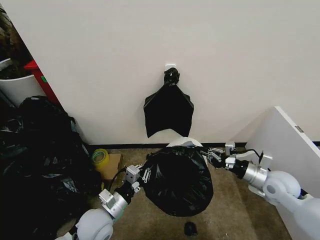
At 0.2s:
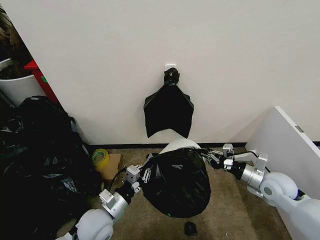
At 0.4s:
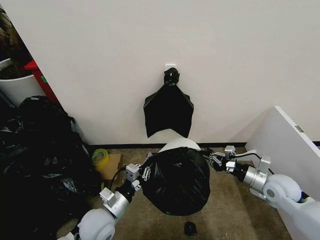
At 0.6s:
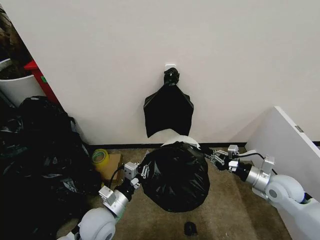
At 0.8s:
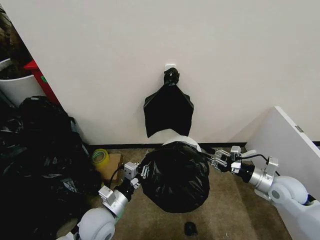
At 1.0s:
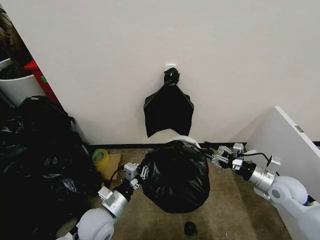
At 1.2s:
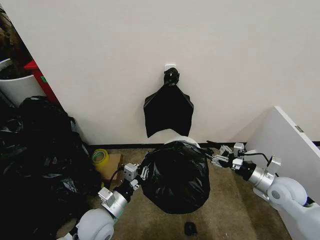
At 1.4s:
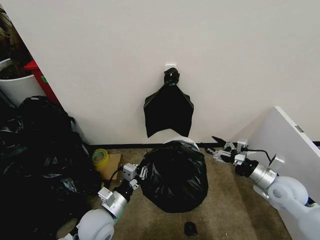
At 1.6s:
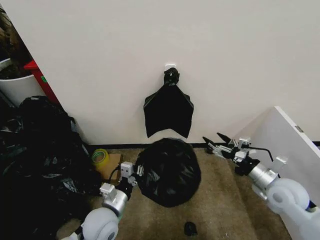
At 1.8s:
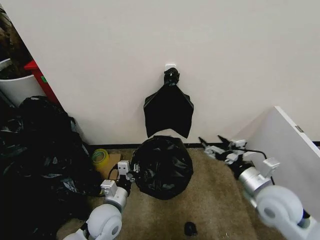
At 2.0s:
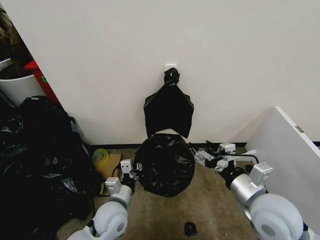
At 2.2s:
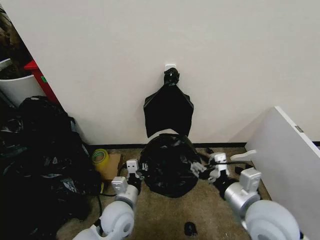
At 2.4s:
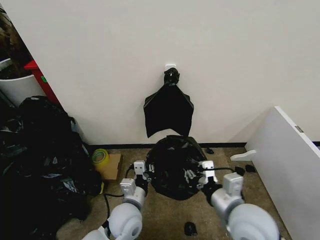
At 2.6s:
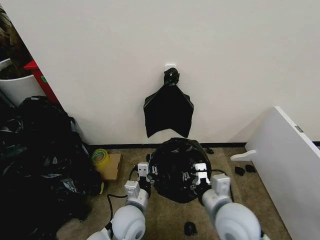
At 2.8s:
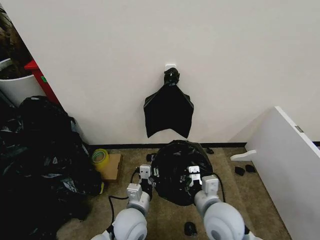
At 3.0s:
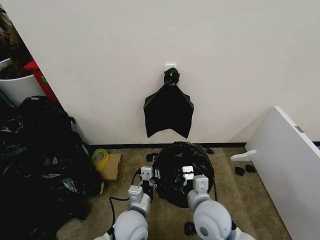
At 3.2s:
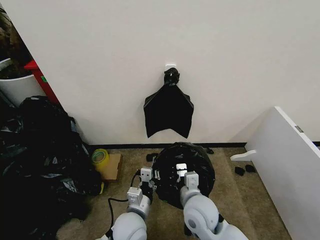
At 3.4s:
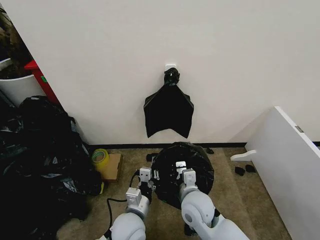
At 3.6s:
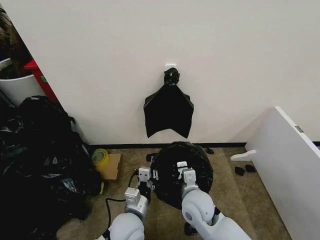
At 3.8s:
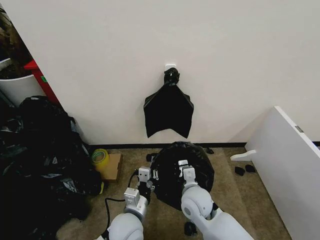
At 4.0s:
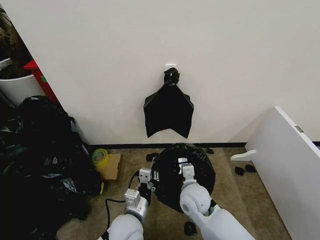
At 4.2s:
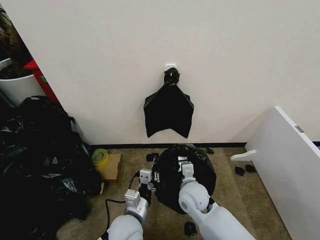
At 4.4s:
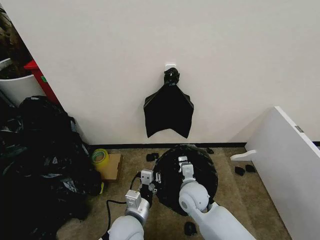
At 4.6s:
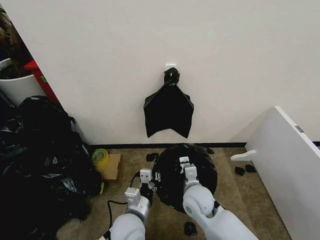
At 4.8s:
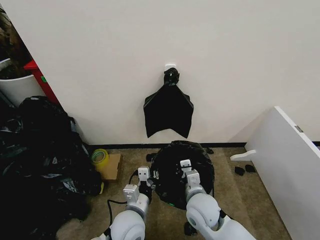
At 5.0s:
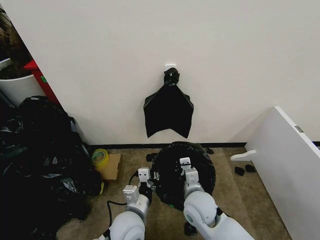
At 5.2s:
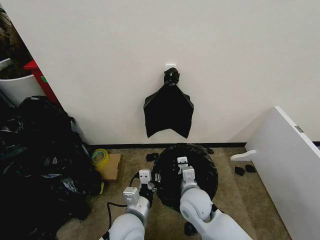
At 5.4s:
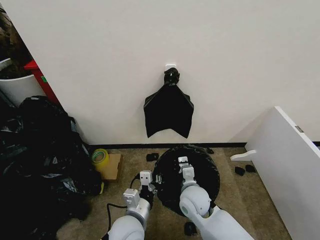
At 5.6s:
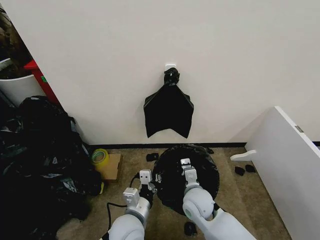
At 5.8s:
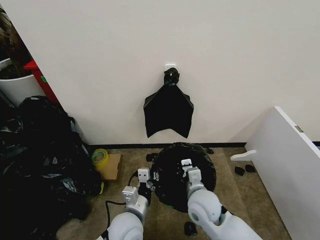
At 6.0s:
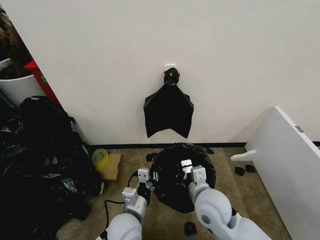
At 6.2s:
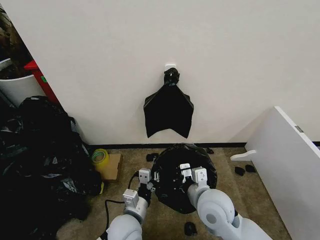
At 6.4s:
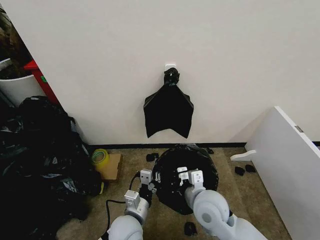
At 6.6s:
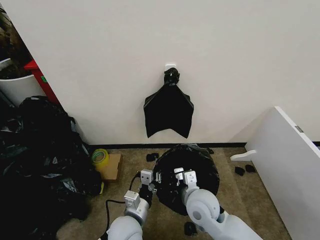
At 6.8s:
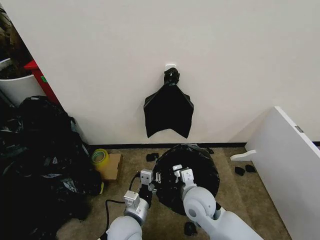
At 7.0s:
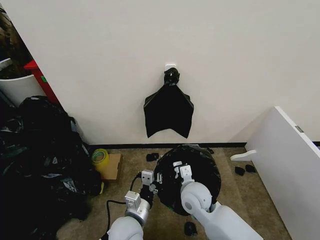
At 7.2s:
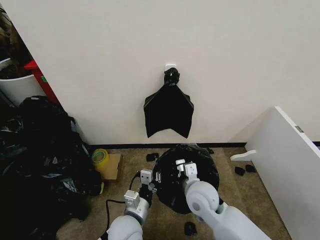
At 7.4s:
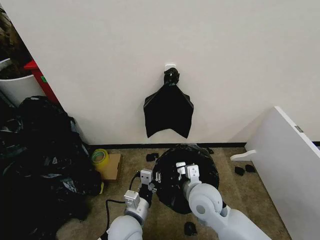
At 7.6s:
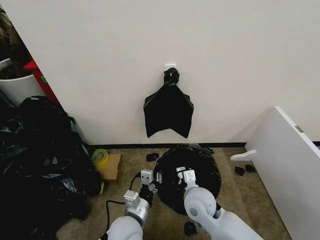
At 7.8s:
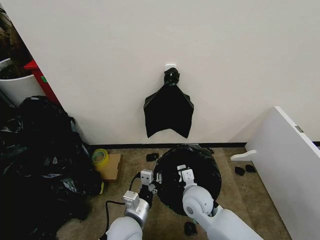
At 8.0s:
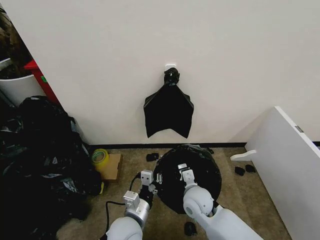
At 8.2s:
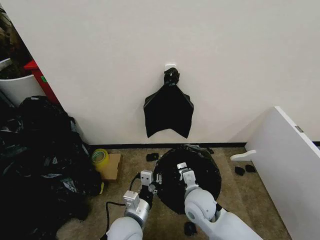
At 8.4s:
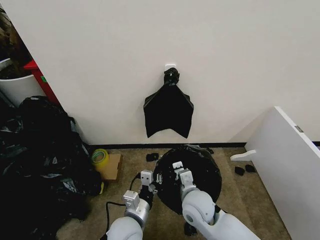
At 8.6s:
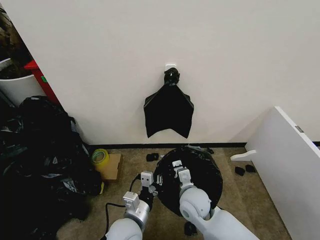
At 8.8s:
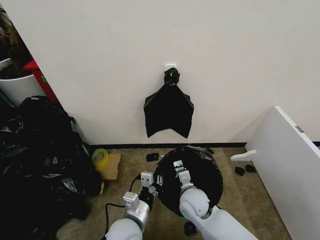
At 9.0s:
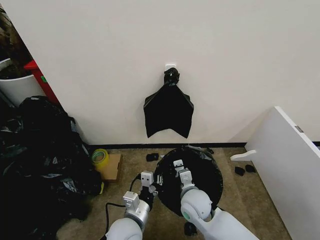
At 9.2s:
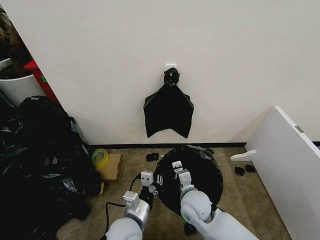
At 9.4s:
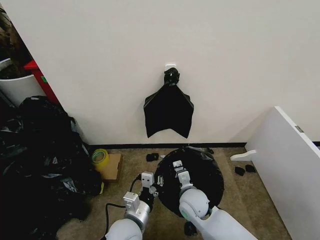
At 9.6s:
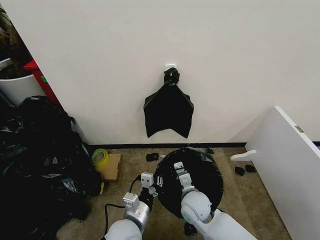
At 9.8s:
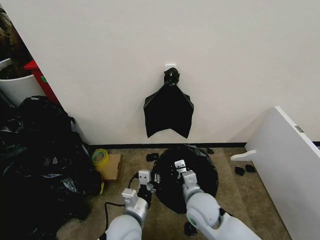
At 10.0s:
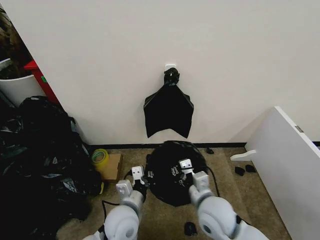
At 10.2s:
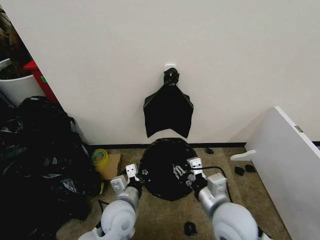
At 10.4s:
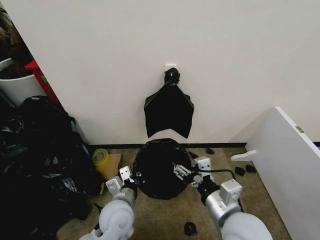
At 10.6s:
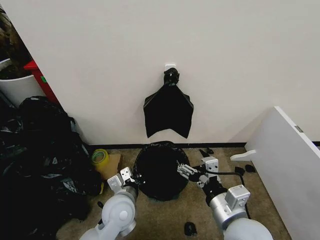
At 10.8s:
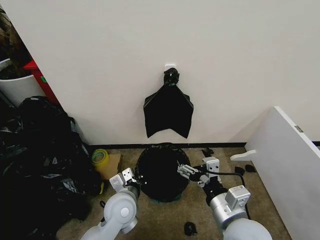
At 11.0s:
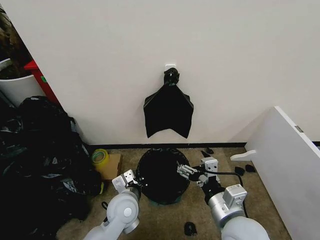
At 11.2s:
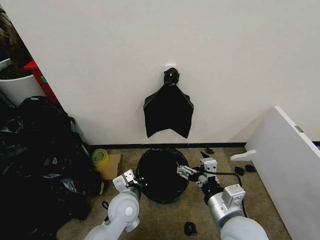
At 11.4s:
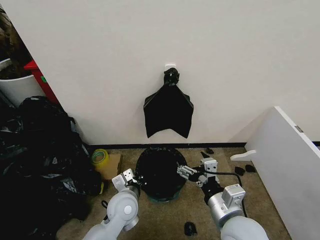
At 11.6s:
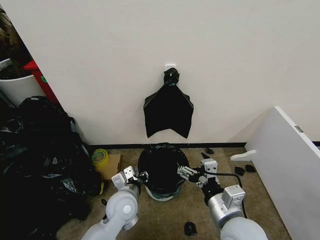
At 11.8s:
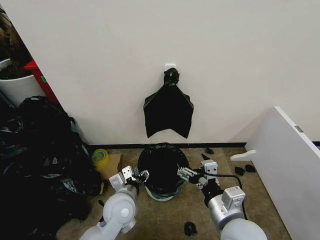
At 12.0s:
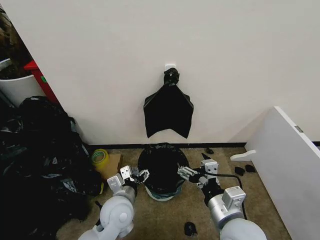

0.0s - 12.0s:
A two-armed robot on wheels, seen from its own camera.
Task of the whole recording: Place the garbage bag over the trash bin.
0.0s - 1.6s: The right gripper opens.
1.6s - 3.0s: The right gripper is displaced to the left by roughly 25 cm, and closes, while the left gripper is displaced to the right by roughly 10 cm.
3.0s - 4.4s: The right gripper goes roughly 10 cm forward and downward.
4.4s - 6.0s: The right gripper goes approximately 10 cm upward and backward.
6.0s - 7.6s: The right gripper travels downward by approximately 5 cm.
7.6s - 9.0s: The grippers stay close to where they were, moving slightly.
9.0s - 10.4s: The left gripper shifts by approximately 5 cm. The right gripper is displaced upward, backward and to the right by about 20 cm, and opens.
10.4s - 12.0s: The left gripper opens.

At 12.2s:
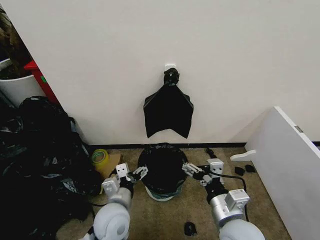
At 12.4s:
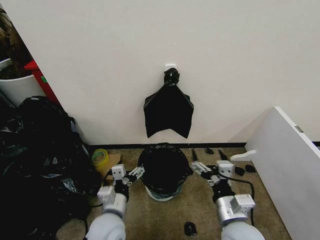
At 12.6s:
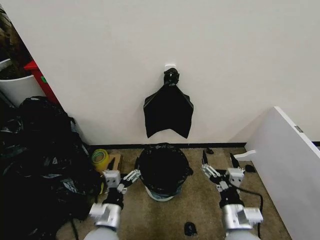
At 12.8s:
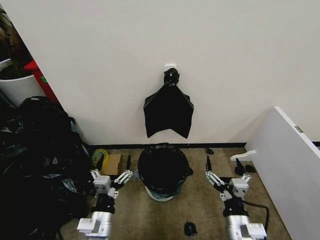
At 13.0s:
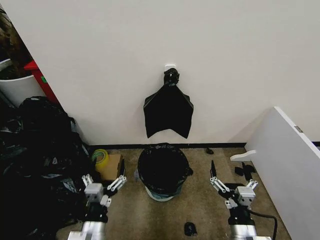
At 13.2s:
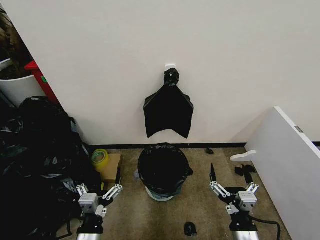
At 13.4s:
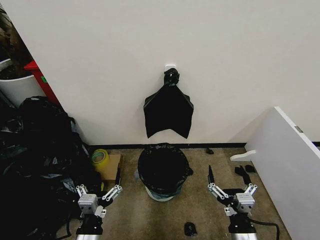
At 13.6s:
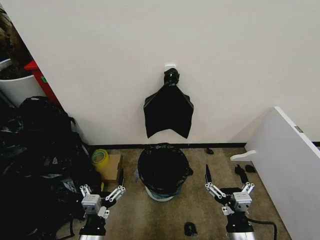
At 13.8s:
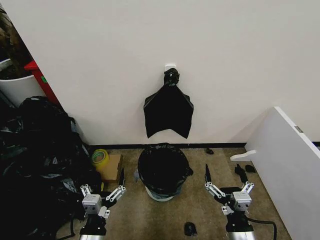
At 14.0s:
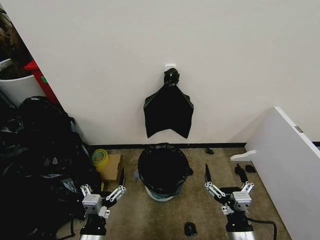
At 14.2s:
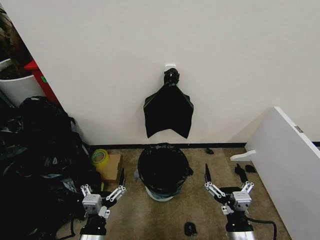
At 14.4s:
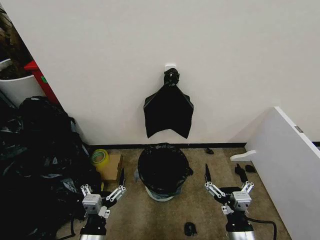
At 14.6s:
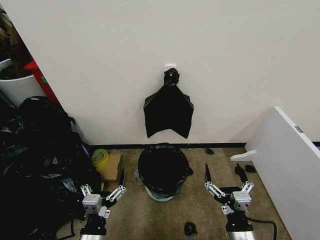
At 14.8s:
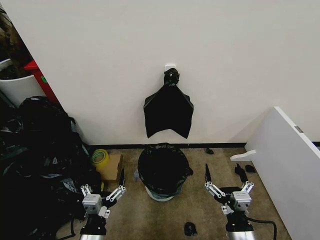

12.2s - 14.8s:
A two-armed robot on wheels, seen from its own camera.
Task of the whole recording: Place the garbage bag over the trash bin.
12.2s - 13.4s: The right gripper heads downward and backward, covering some 10 cm. The left gripper shifts approximately 15 cm backward and to the left.
13.4s - 14.8s: The two grippers keep their place.
